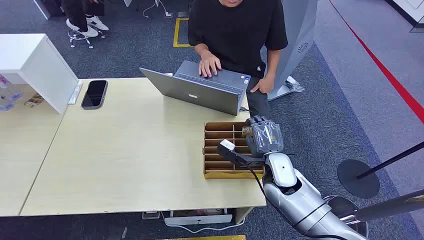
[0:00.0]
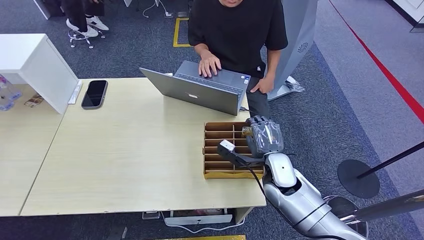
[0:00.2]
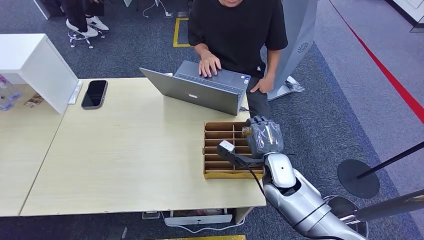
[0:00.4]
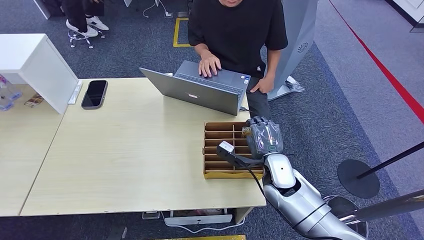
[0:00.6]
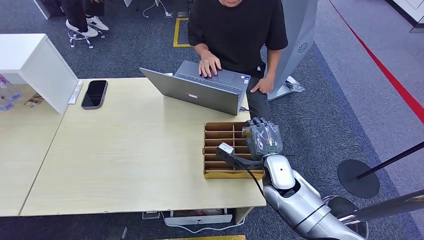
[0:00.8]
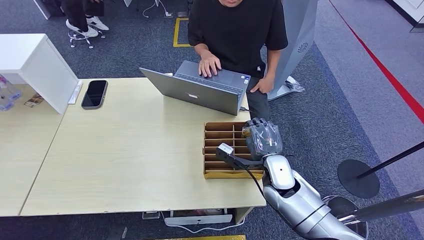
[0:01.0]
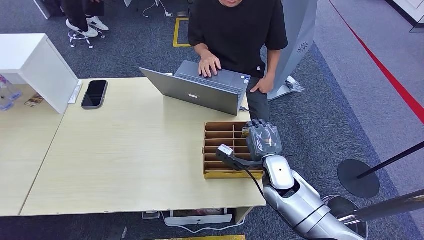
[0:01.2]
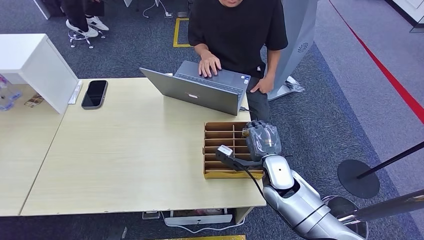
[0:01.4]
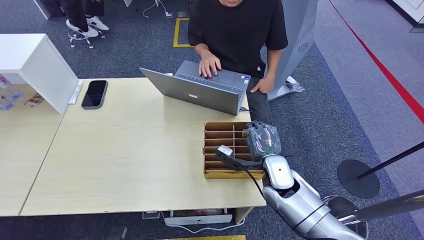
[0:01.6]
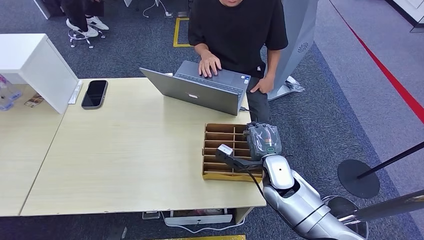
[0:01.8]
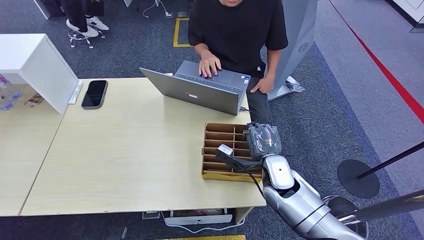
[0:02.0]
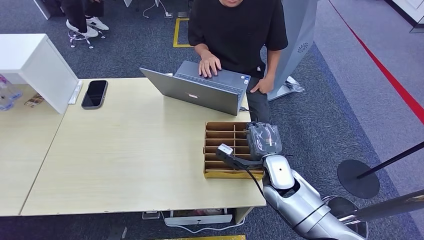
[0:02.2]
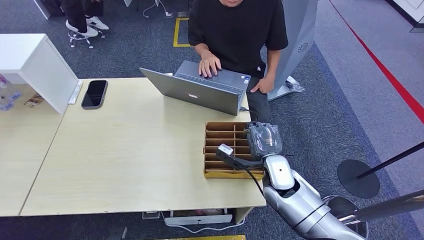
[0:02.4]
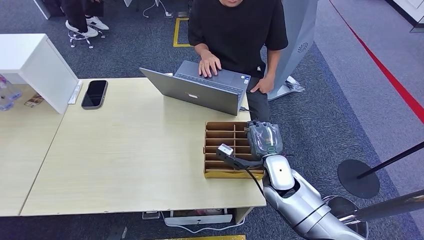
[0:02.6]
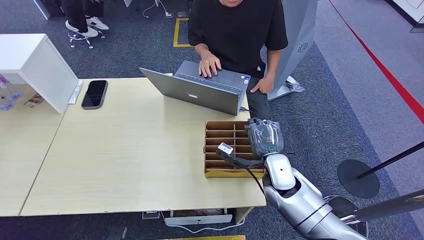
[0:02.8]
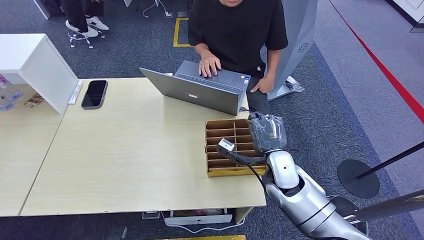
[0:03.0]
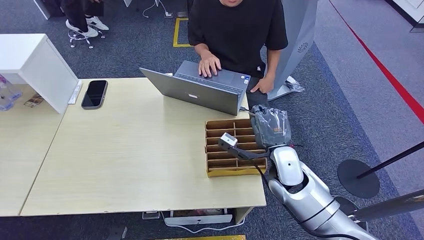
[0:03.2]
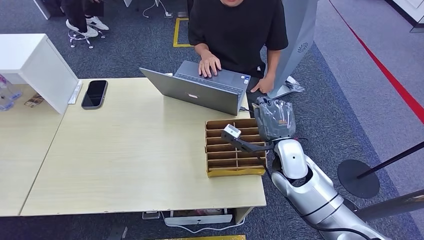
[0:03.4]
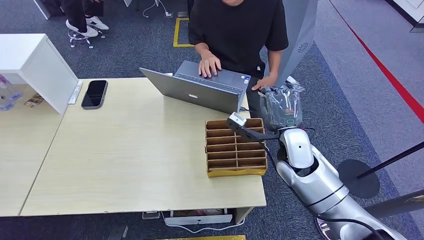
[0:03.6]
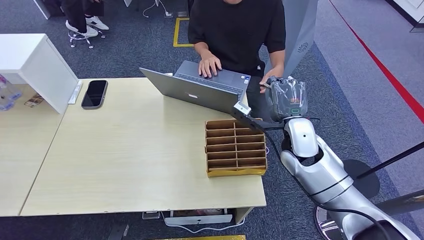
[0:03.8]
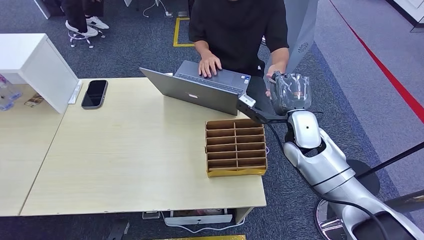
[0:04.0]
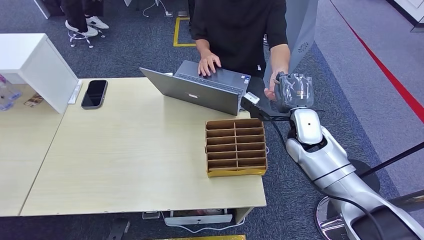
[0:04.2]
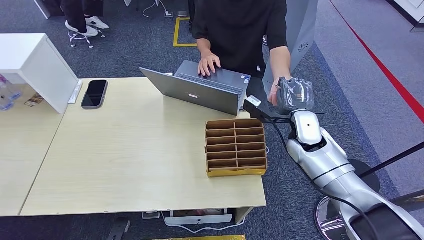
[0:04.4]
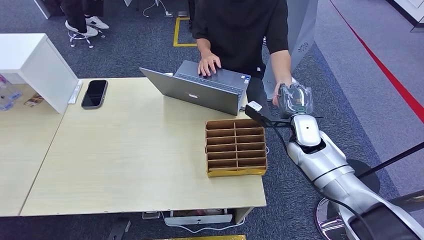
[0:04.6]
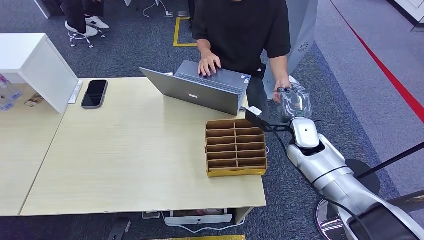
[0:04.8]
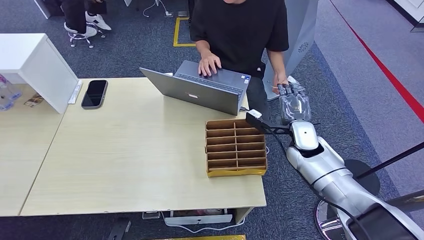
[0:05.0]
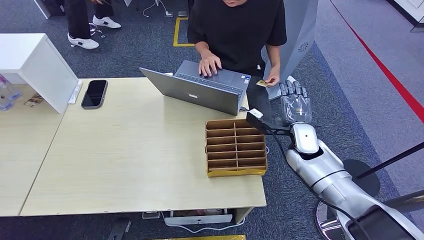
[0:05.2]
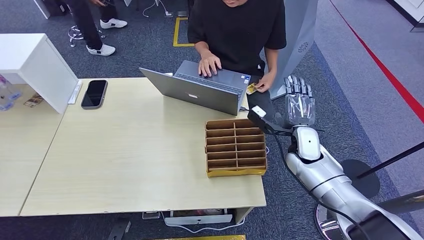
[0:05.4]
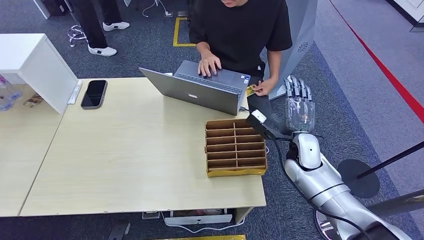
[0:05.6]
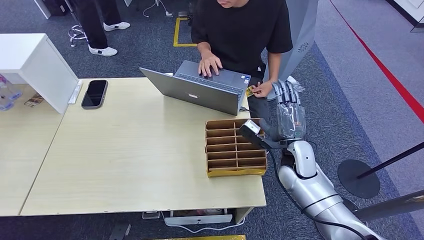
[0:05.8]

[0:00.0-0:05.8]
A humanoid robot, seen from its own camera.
Step, 0:00.0 to 0:03.4: Pick up the room card from the card holder.
Step, 0:03.6 to 0:05.8: Hand the room card to the target.
0:01.4 to 0:02.8: The right hand travels upward by about 5 cm.
0:02.8 to 0:04.4: The right hand shifts roughly 10 cm forward and to the right.
0:04.4 to 0:05.8: The right hand shifts about 10 cm backward.
